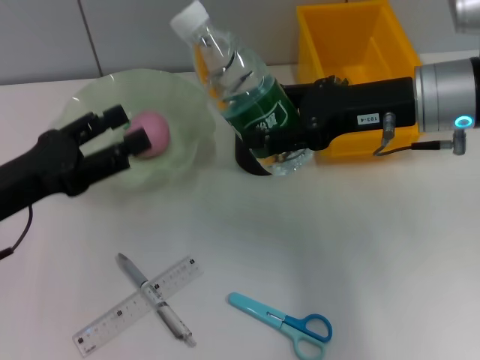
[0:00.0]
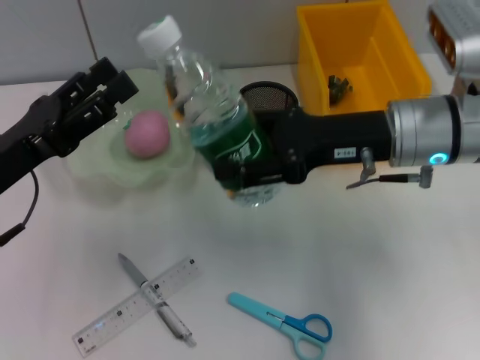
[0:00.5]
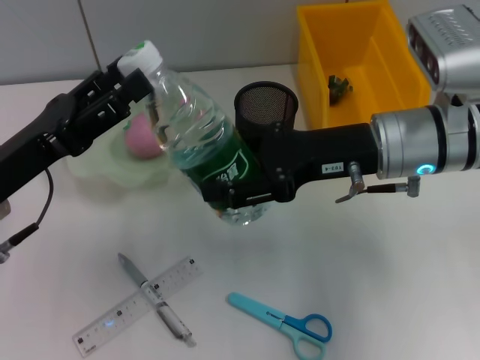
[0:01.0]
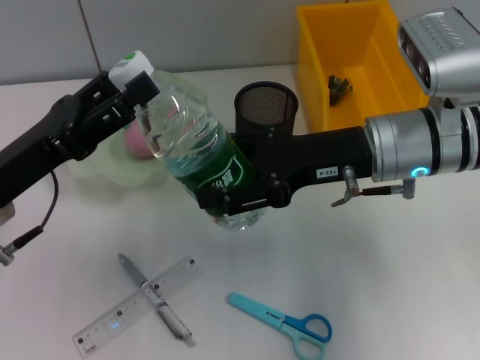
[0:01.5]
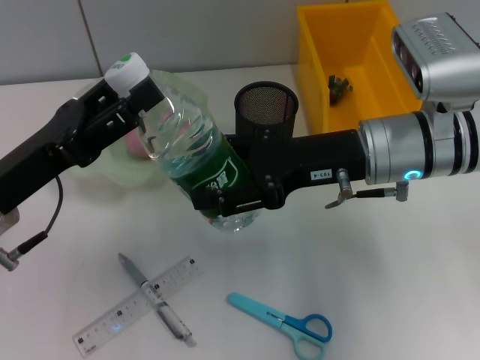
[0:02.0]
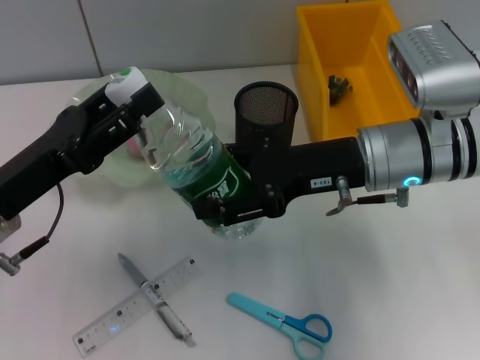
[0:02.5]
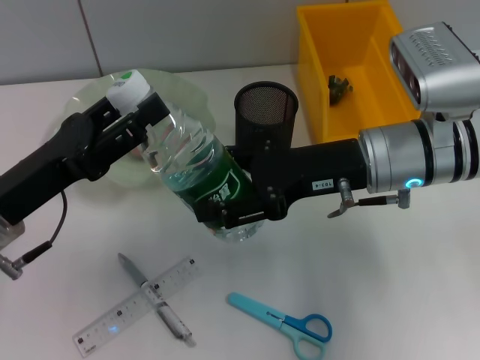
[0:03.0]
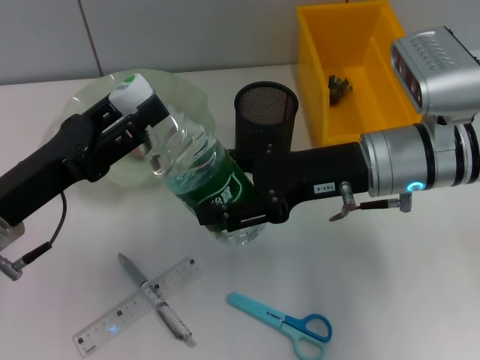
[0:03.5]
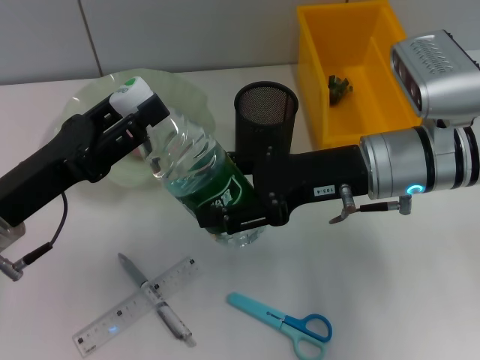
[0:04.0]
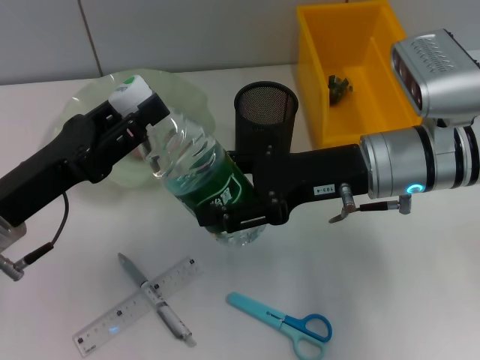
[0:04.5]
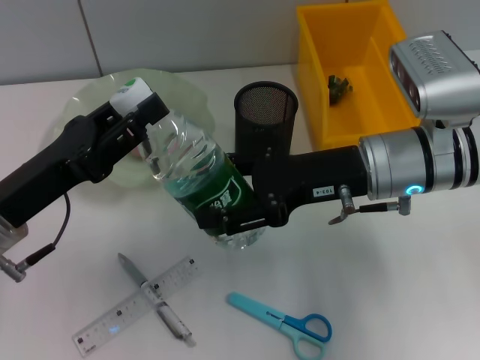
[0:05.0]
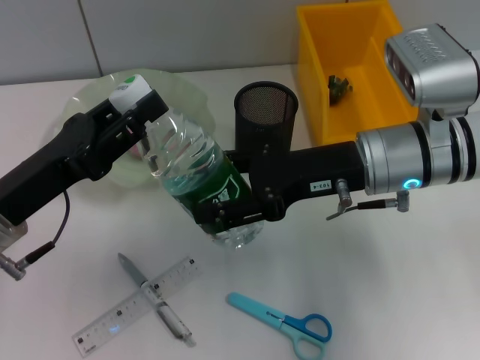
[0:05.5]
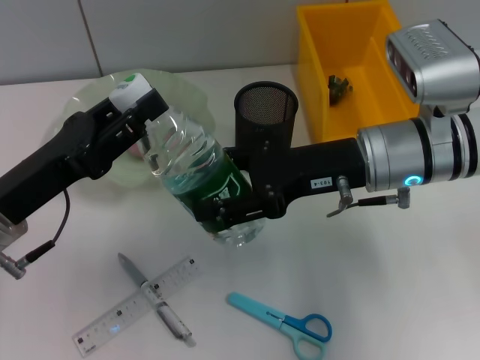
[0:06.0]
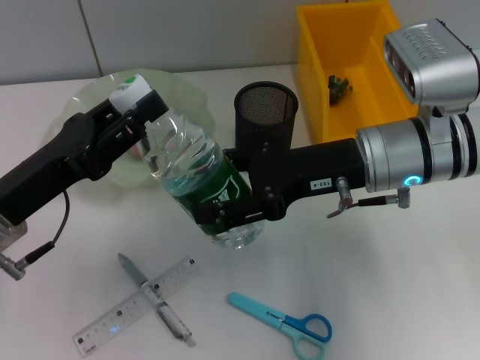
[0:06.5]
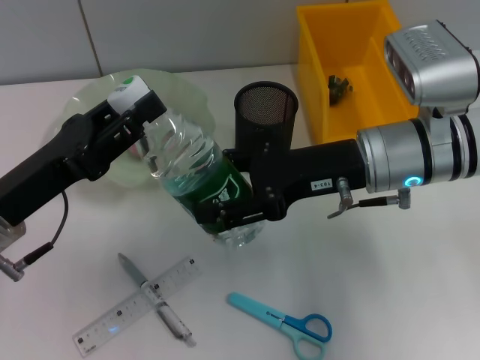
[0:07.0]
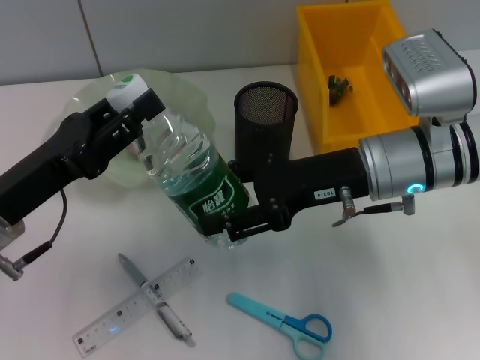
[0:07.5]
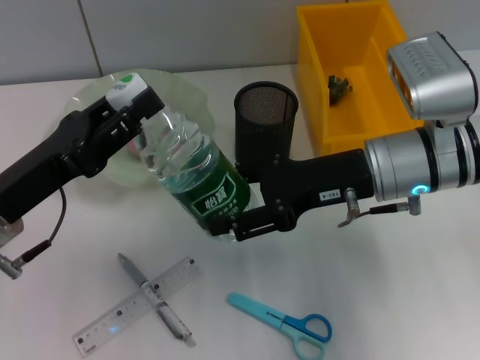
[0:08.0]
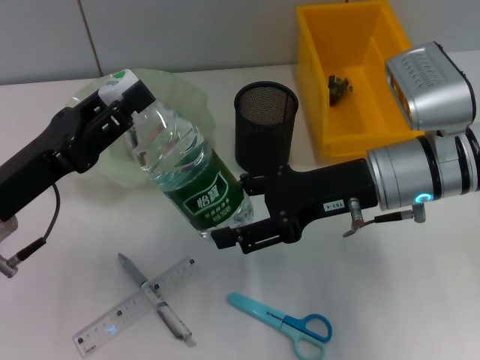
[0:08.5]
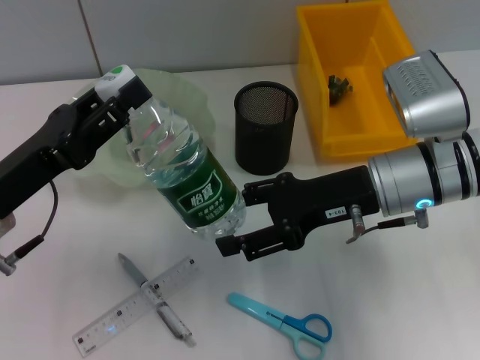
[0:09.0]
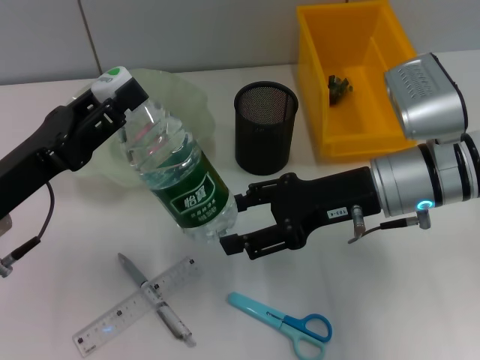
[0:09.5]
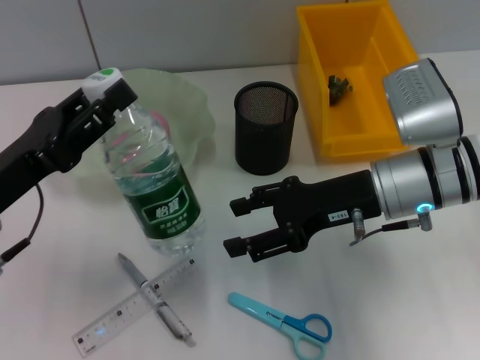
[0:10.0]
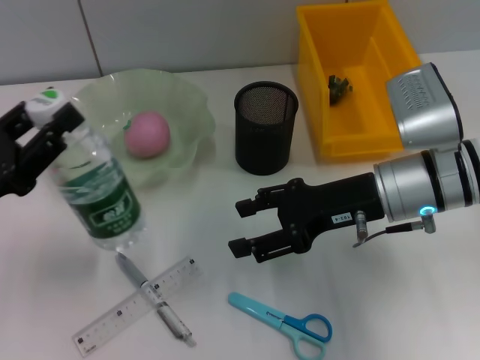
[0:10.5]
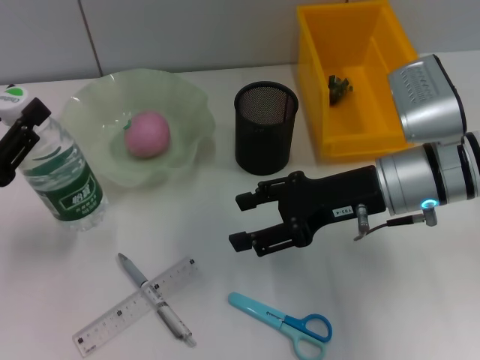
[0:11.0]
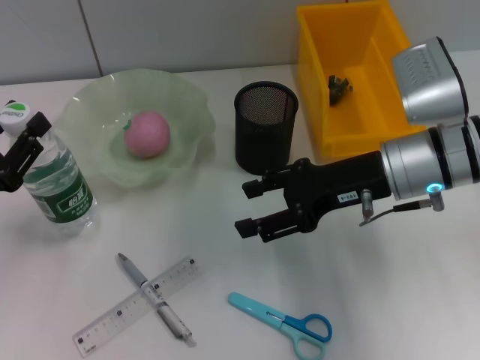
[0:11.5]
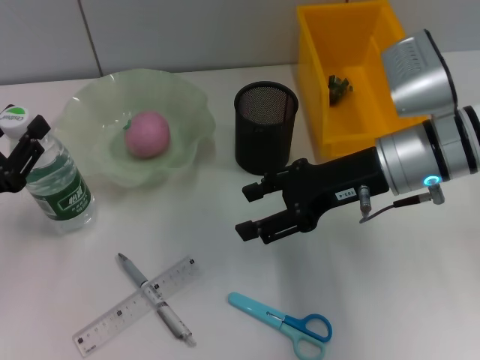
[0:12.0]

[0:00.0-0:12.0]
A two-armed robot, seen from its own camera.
Step, 0:00.0 to 0:09.0: Pass the water bottle from the right hand to the left hand.
0:00.0 to 0:02.0: The right gripper shifts by about 5 cm.
0:02.0 to 0:06.0: Both grippers stay put.
0:06.0 to 0:08.0: The grippers make only small movements.
0:10.0 to 0:12.0: The left gripper moves to the left, about 5 cm.

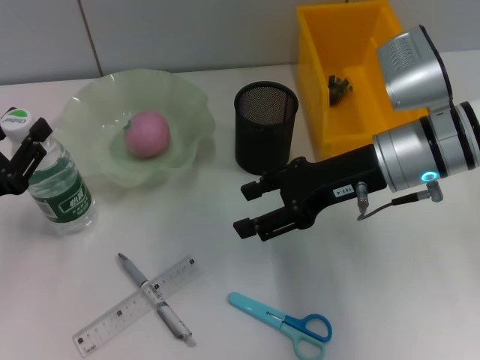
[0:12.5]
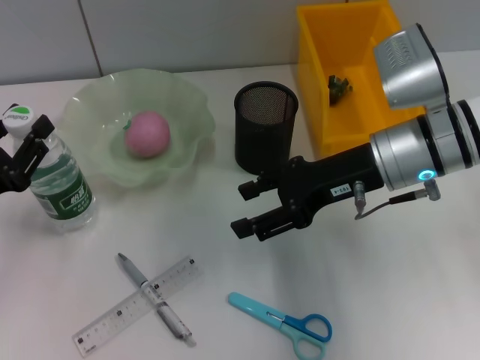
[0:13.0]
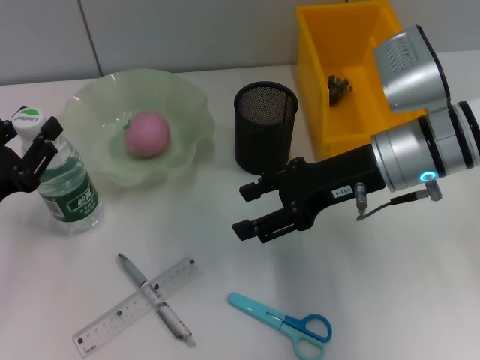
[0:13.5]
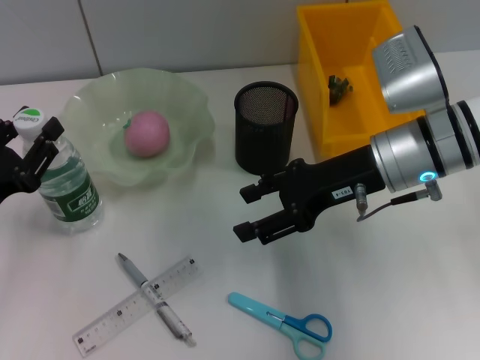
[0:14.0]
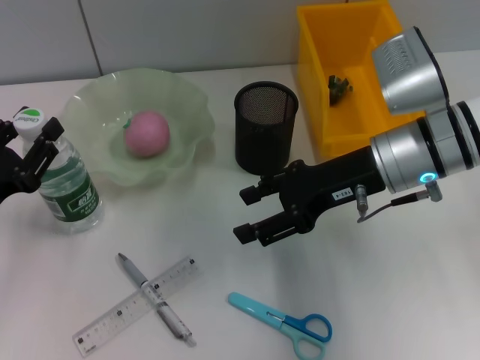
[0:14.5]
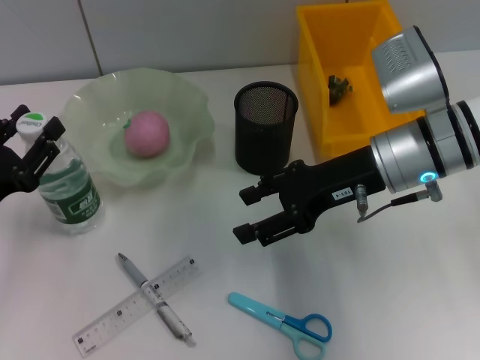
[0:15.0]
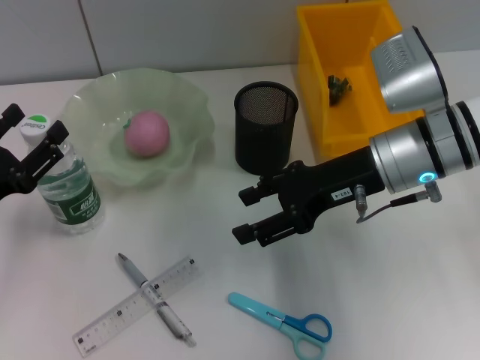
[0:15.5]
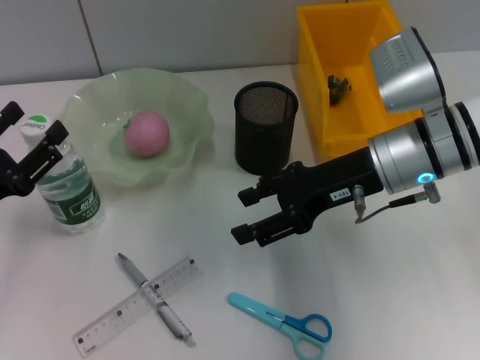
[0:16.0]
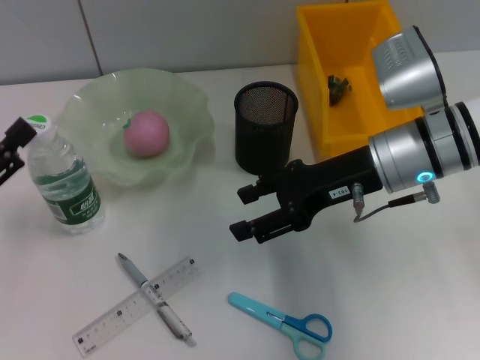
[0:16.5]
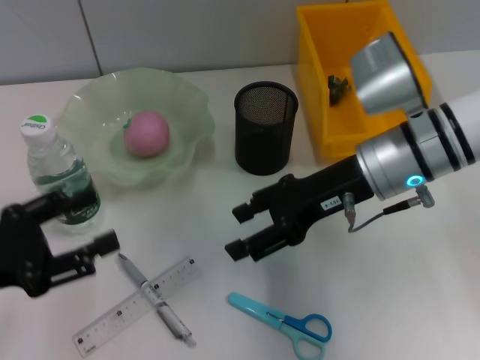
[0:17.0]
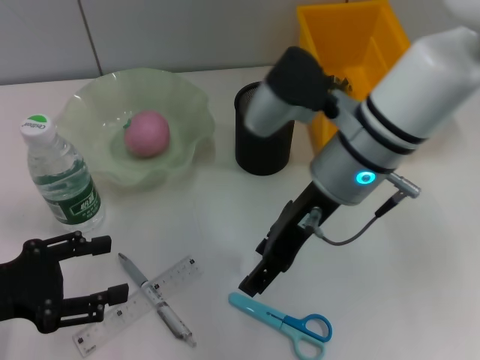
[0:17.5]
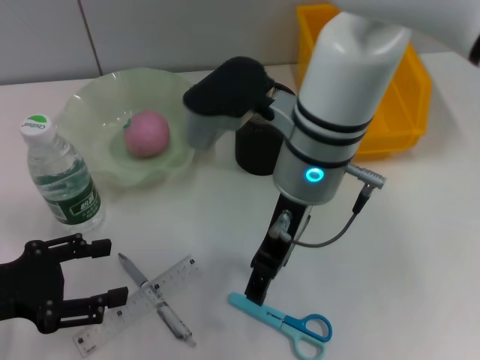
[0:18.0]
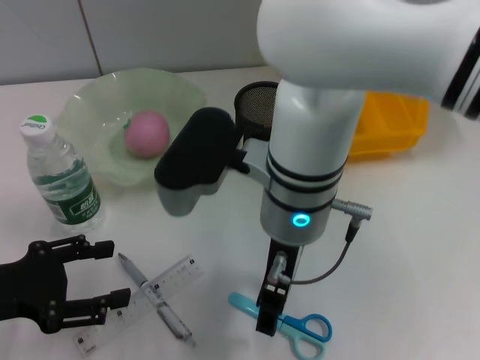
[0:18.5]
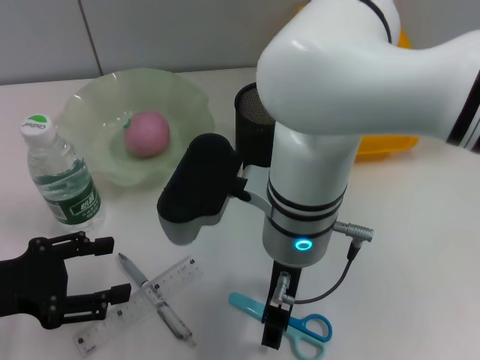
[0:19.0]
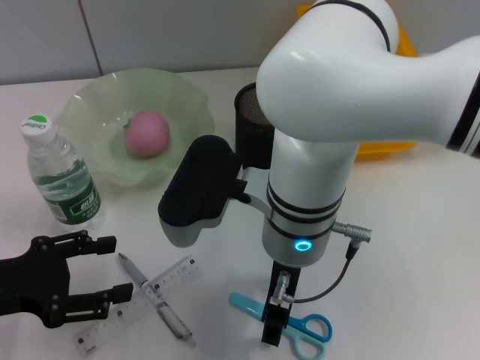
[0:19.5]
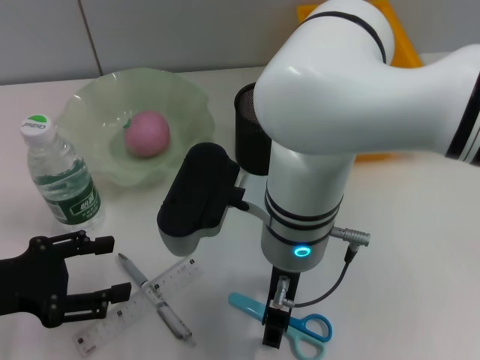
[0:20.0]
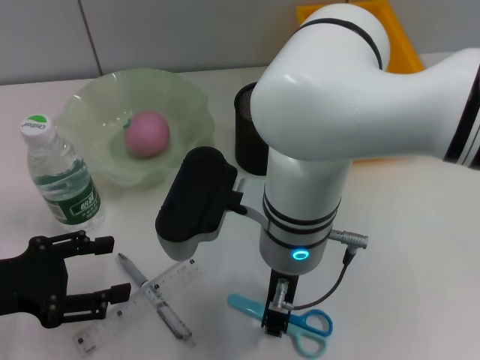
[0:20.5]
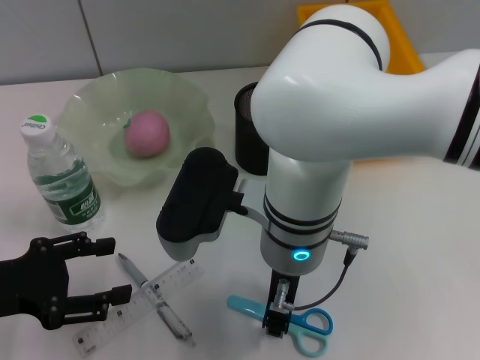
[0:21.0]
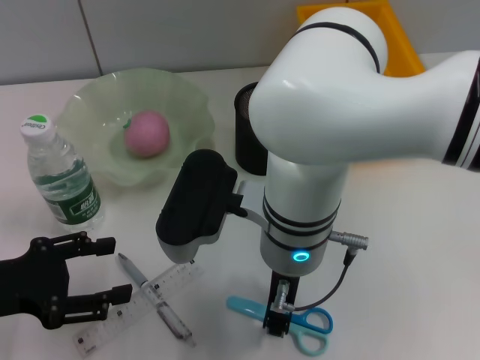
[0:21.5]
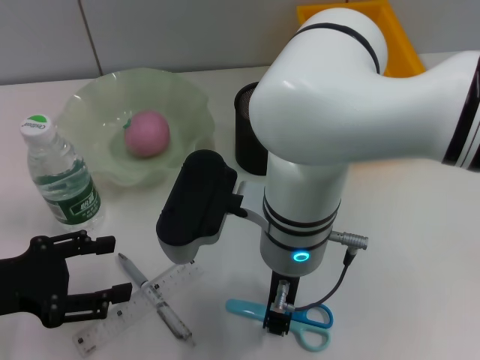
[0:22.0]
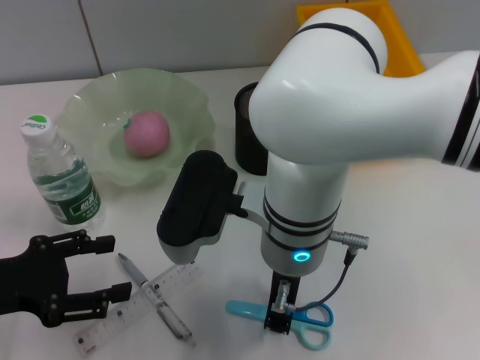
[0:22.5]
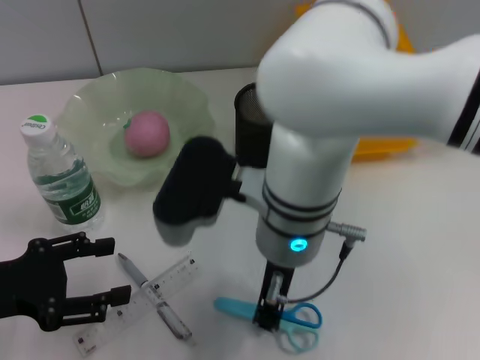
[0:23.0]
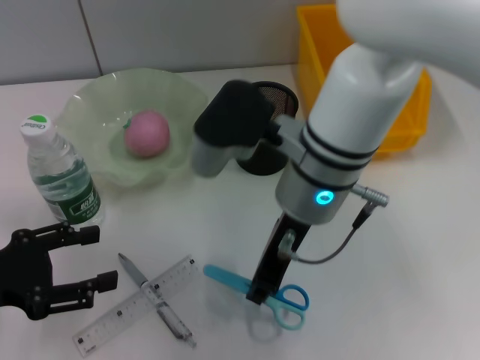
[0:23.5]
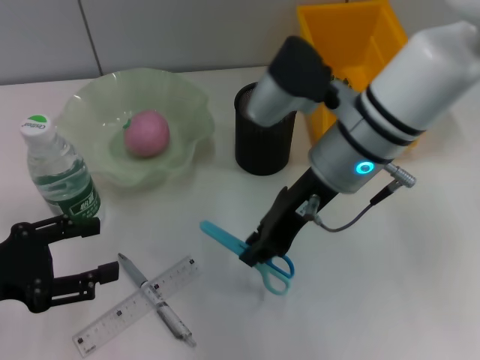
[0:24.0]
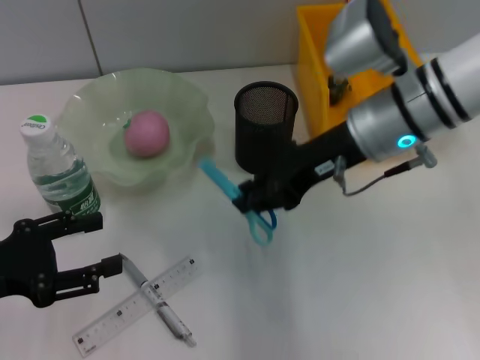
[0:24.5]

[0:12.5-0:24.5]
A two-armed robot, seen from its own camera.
Step, 0:12.5 to 0:15.5: Place the water bottle on the table with the left hand.
Step, 0:16.0 to 0:22.5: Grab the blue scissors with the right hand.
0:12.5 to 0:14.5: Both grippers stay about where they are.
0:14.5 to 0:16.5: The left gripper ends up roughly 5 cm from where it was, and opens its fingers.
0:16.5 to 0:18.5: The right gripper moves to the left, roughly 15 cm.
0:20.5 to 0:22.5: Both grippers stay about where they are.
0:22.5 to 0:24.5: The right gripper goes about 15 cm to the right and forward.

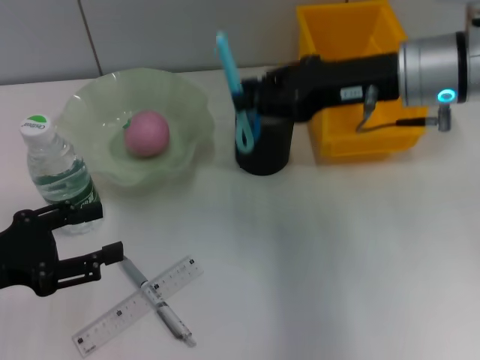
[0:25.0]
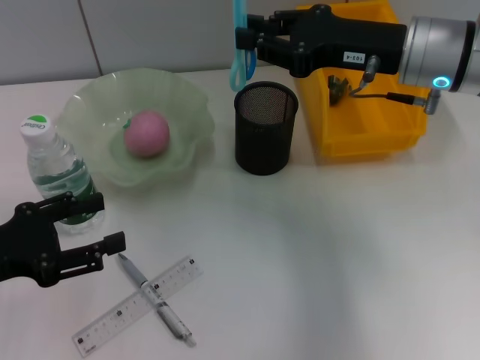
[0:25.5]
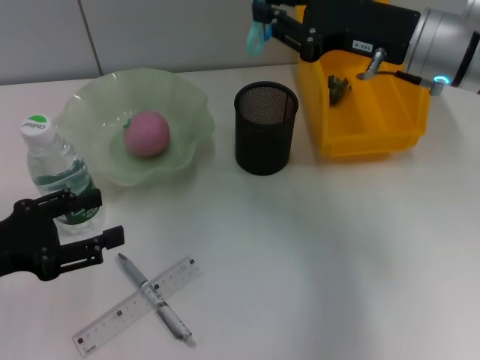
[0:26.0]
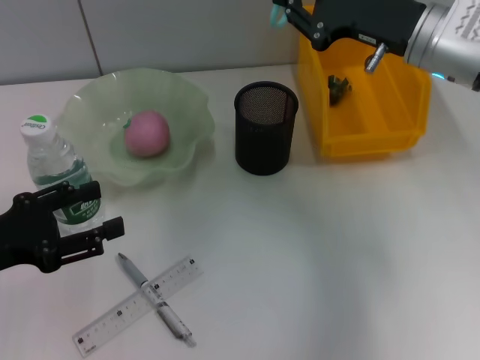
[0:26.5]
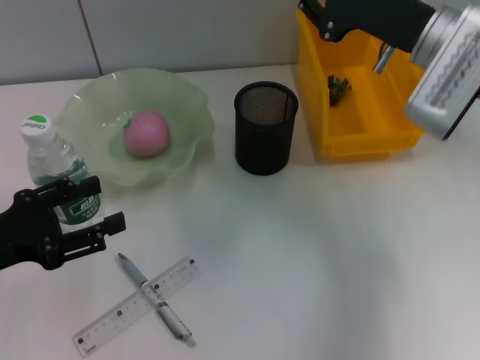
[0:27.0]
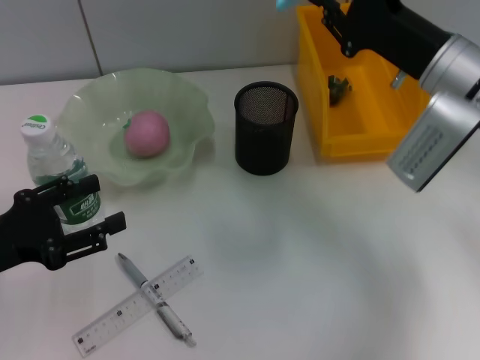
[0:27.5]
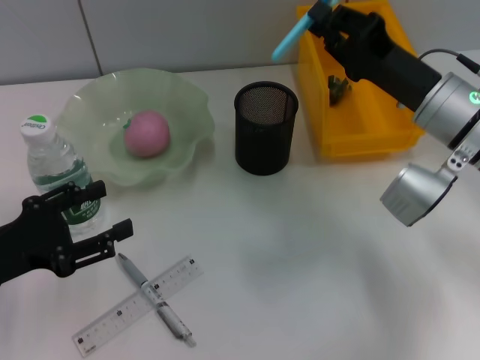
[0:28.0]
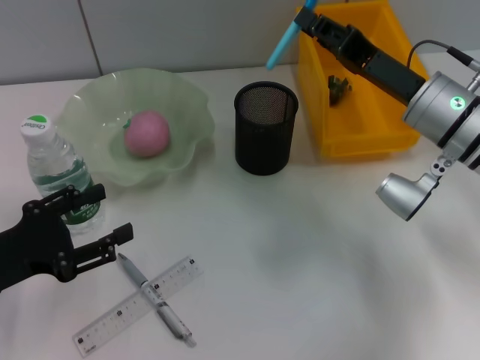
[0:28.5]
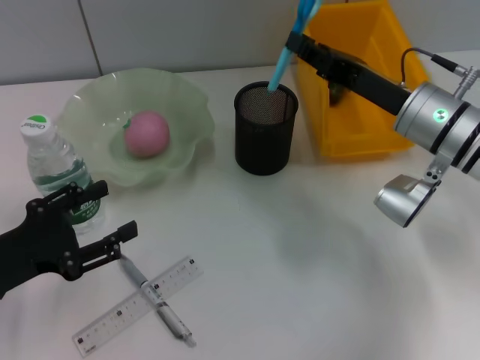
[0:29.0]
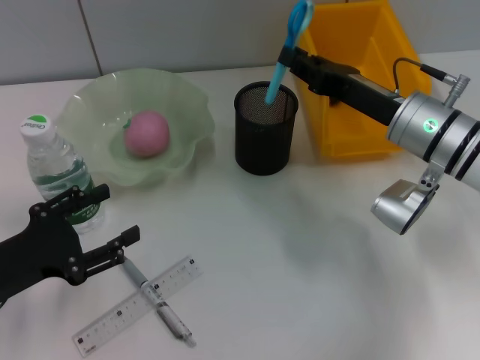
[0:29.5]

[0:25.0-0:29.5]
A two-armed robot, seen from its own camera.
0:27.0 to 0:29.5: The right gripper heads downward, covering approximately 5 cm.
